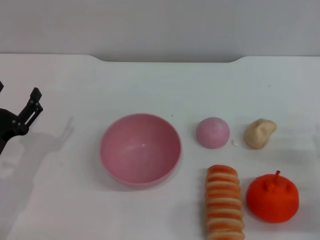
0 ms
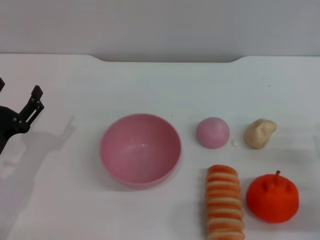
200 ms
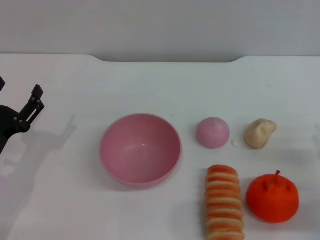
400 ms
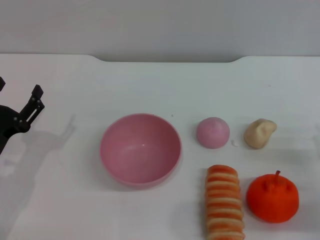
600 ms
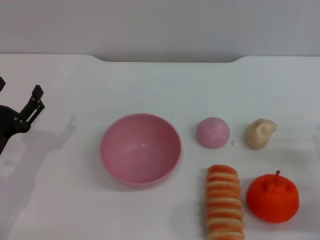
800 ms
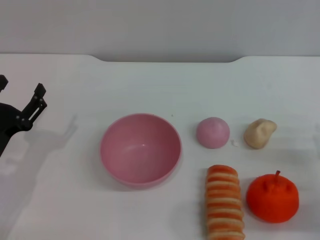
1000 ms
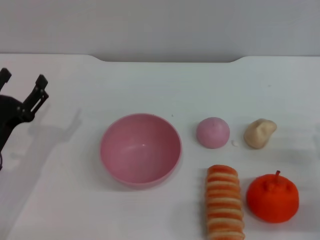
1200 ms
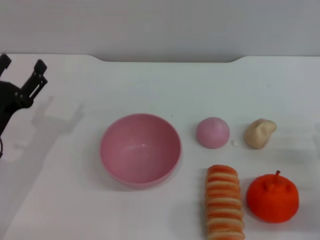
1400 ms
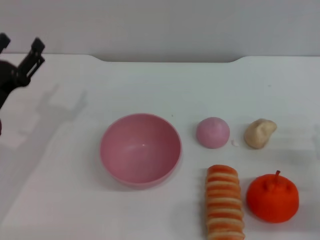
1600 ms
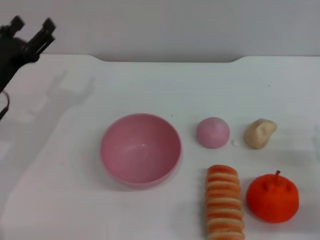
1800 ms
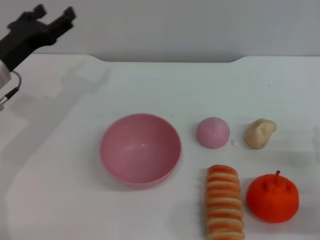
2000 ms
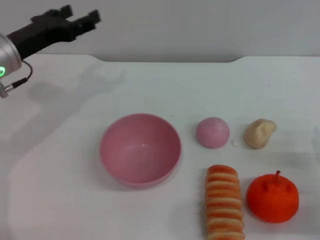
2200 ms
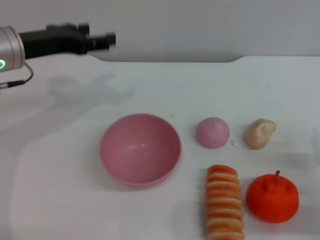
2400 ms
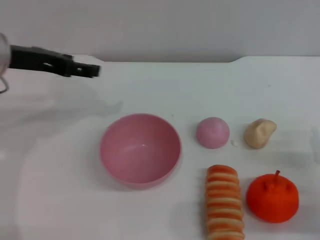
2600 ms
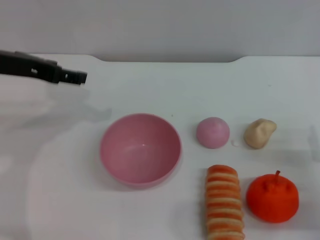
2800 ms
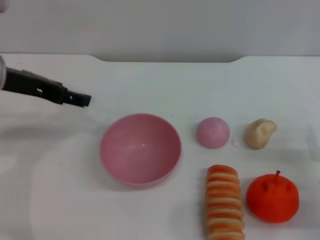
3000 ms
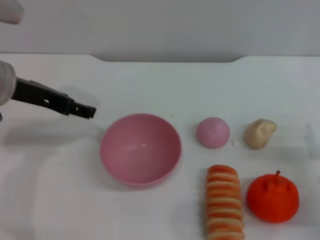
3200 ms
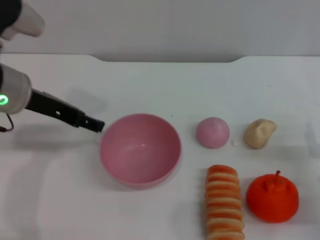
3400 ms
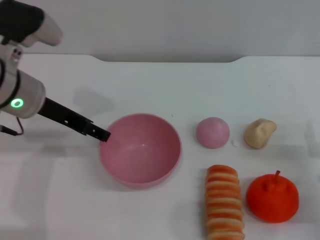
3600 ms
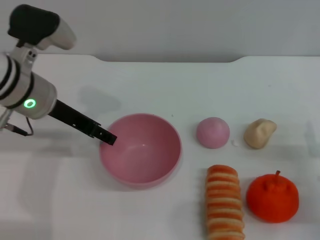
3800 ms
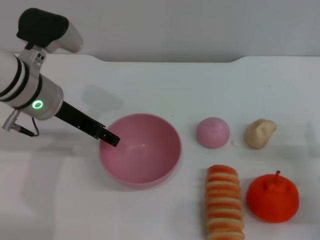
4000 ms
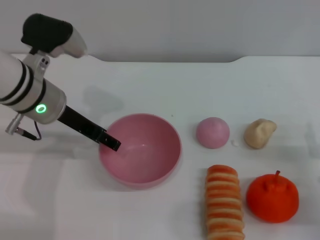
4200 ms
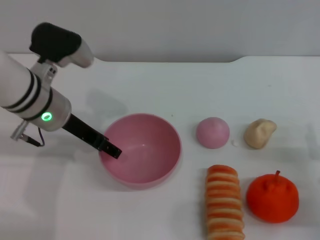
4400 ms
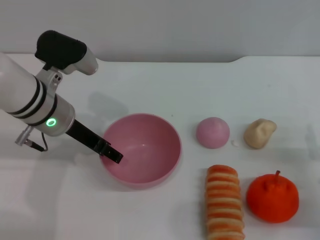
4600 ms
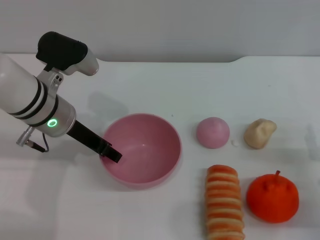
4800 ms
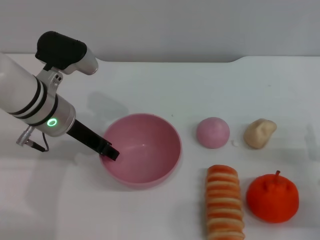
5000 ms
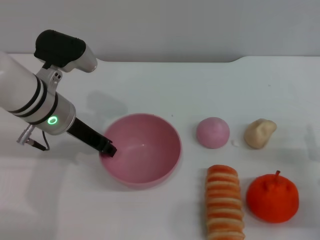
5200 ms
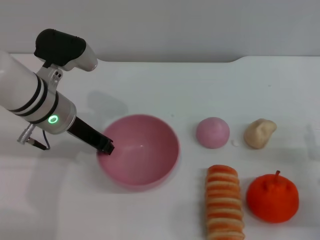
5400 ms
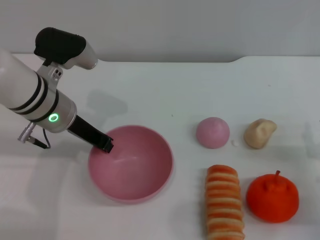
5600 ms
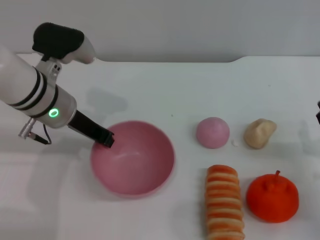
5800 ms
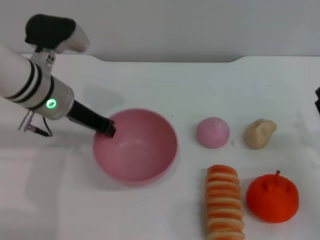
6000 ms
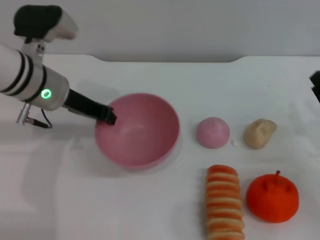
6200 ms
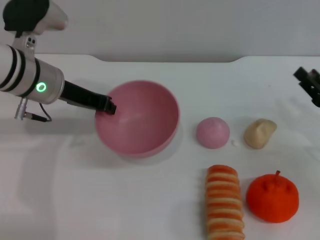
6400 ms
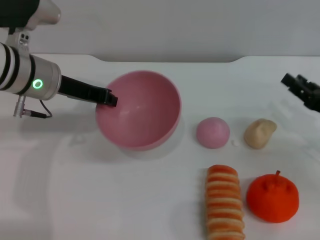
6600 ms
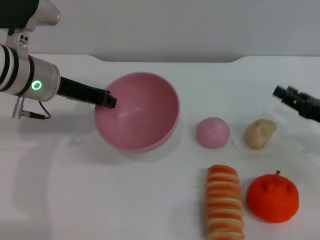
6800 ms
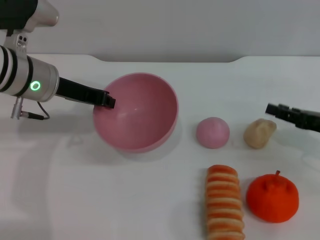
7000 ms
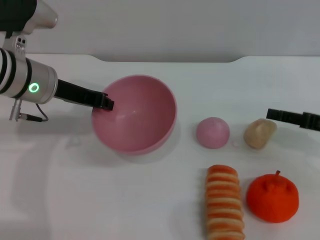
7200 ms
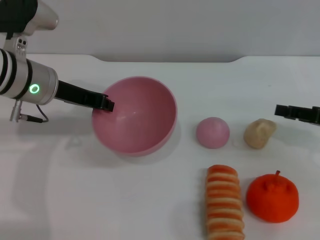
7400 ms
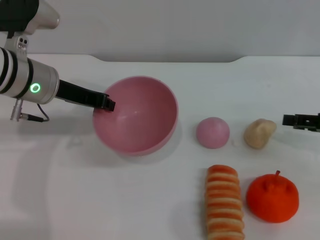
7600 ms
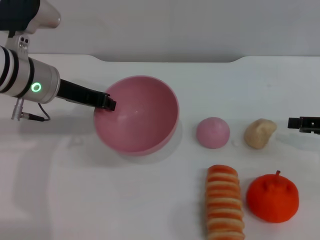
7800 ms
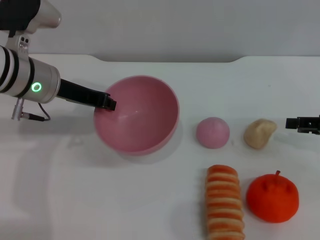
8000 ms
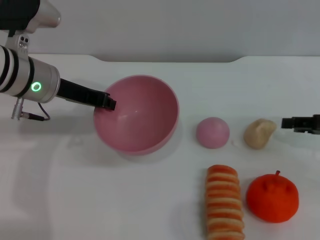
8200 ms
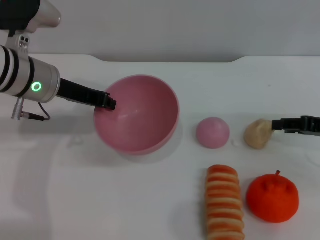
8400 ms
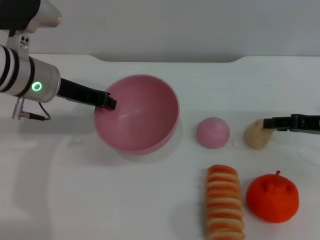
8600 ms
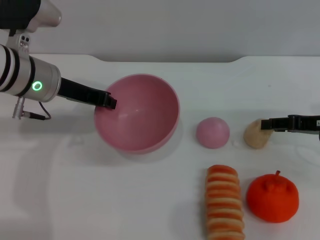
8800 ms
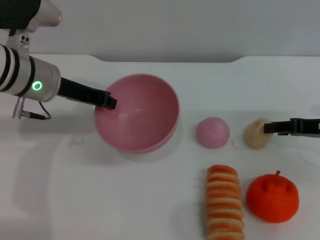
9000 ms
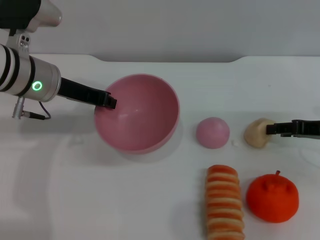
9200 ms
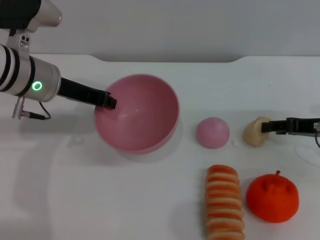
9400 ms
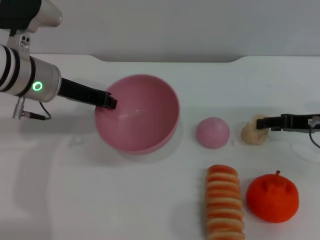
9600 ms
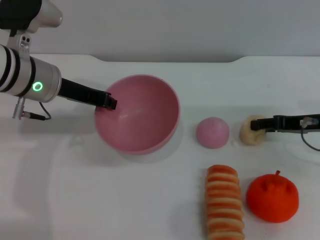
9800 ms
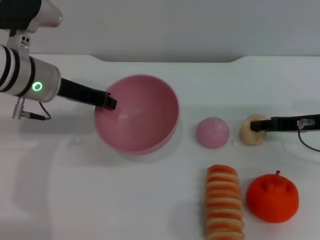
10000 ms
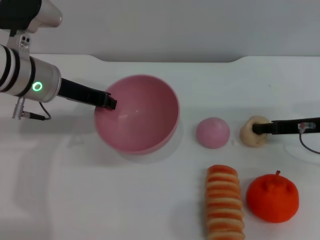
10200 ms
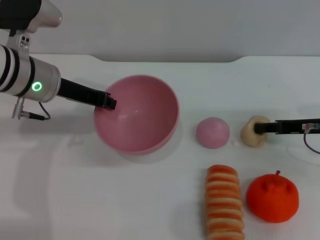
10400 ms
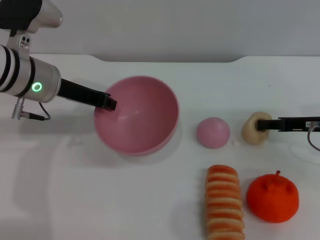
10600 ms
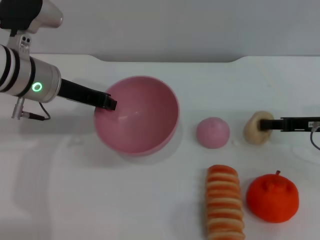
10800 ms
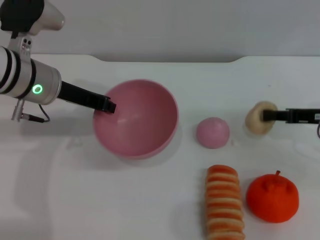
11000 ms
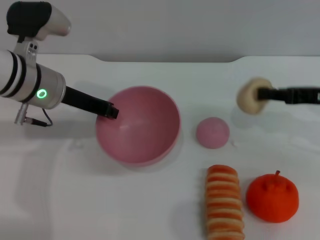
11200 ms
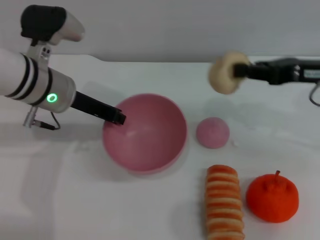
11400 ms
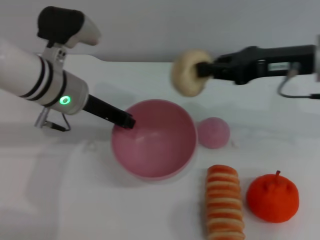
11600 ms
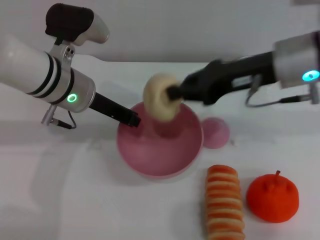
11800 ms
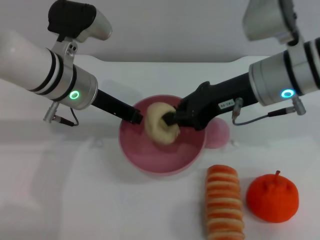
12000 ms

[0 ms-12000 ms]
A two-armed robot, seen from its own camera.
Task of the whole recording: put the egg yolk pastry into the pink bowl and pour it out repeatedly.
Step, 0 ms to 6800 ms: Pick up the bowl with the left gripper.
Step, 7000 ms to 11200 ms: Pick up the egg yolk pastry with the right gripper.
0 ms to 1600 ms: The left gripper travels forward by roughly 5 cm.
1600 ms to 3000 ms: The left gripper travels upward by roughly 15 cm.
3000 ms to 4400 ms: The left gripper heads downward and to the right, covering some 10 cm.
4400 ms to 6000 ms: The left gripper closes its fingers.
6000 ms to 7600 ms: The right gripper heads upward and forward, covering approximately 10 cm.
7600 ms to 9000 ms: The grippers move only a little.
9000 ms to 10400 ms: The grippers stay close to where they were, moving slightly.
10400 ms to 12000 ms: The right gripper moves to the left and upward, approximately 20 cm, and closes its fingers; the left gripper travels to the right by some 5 cm.

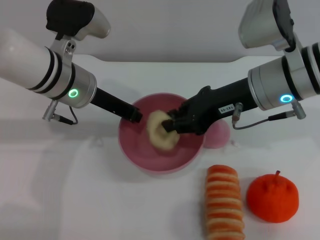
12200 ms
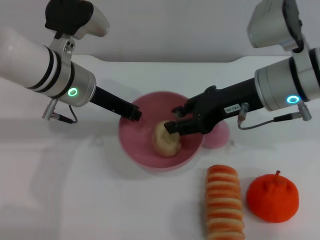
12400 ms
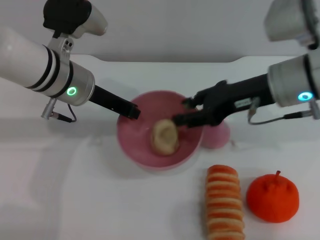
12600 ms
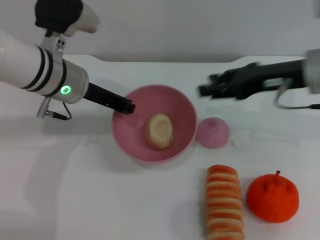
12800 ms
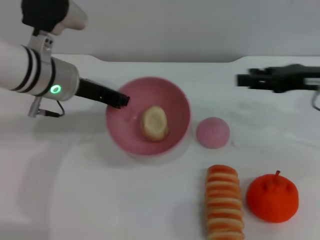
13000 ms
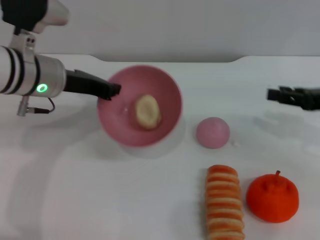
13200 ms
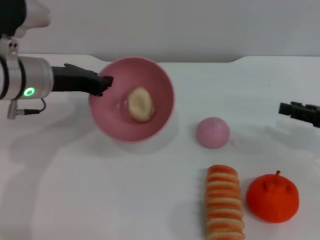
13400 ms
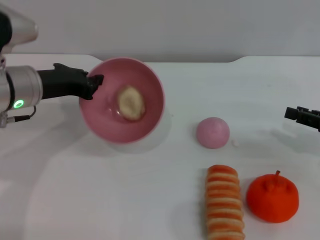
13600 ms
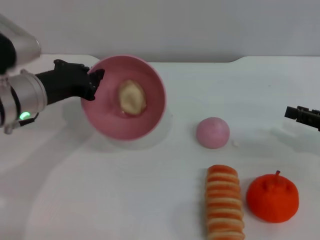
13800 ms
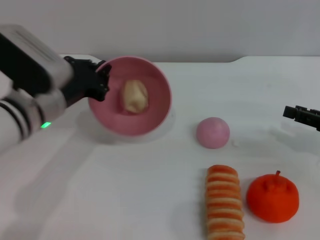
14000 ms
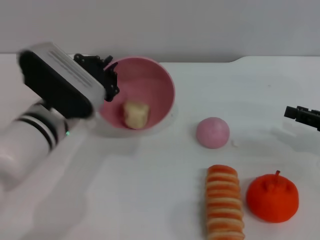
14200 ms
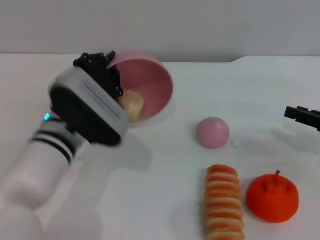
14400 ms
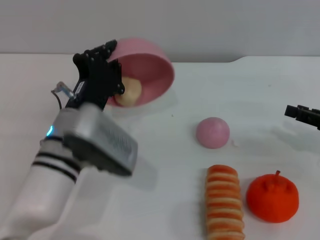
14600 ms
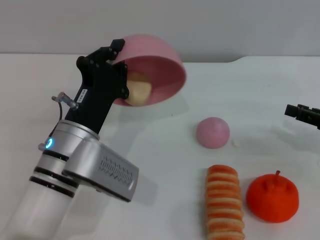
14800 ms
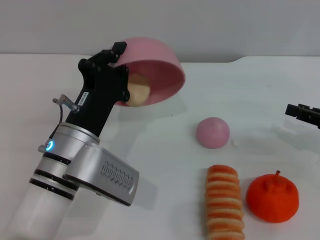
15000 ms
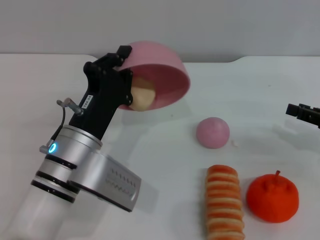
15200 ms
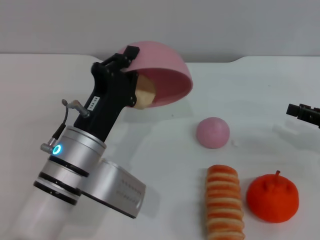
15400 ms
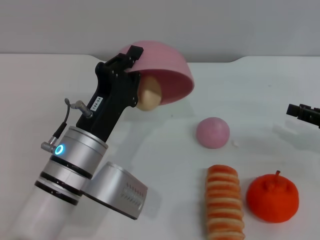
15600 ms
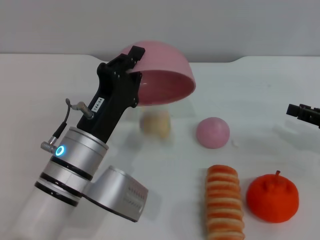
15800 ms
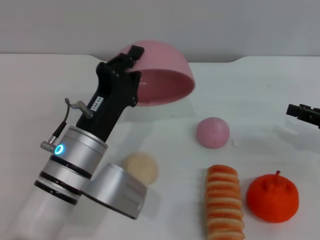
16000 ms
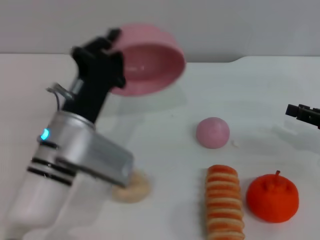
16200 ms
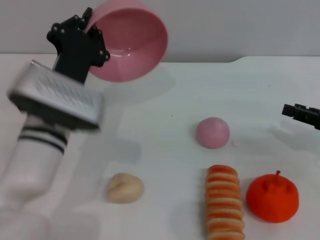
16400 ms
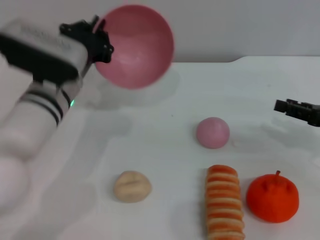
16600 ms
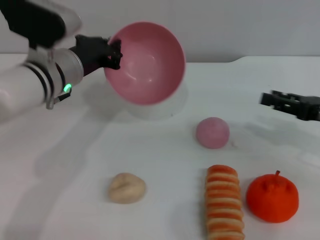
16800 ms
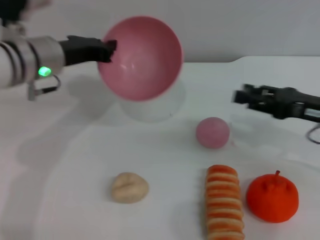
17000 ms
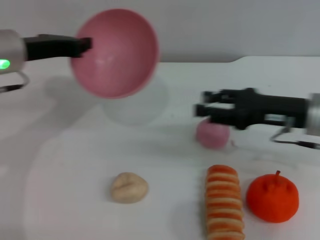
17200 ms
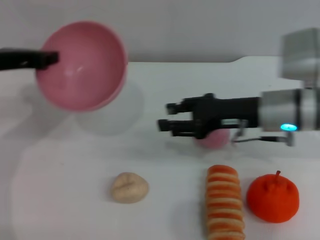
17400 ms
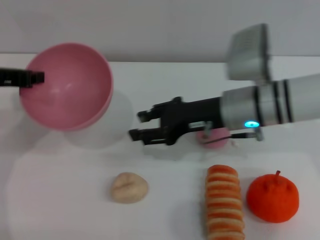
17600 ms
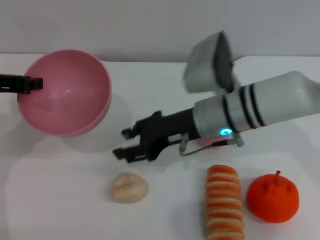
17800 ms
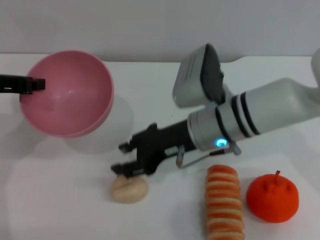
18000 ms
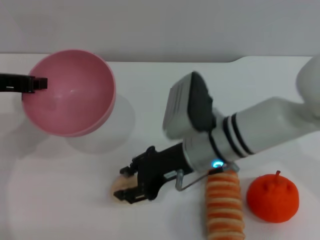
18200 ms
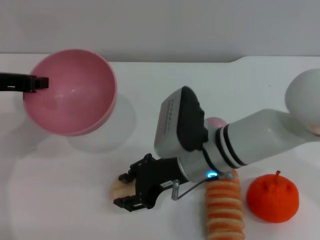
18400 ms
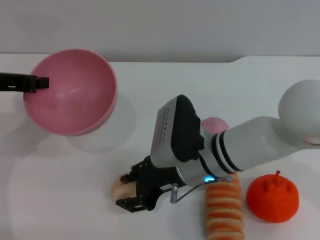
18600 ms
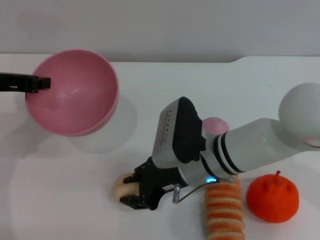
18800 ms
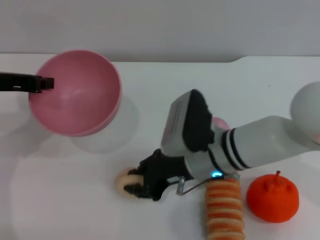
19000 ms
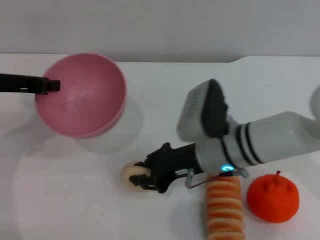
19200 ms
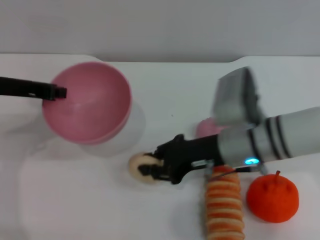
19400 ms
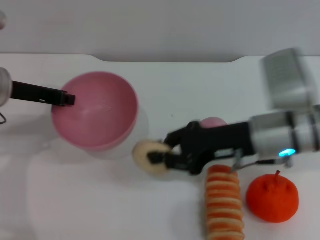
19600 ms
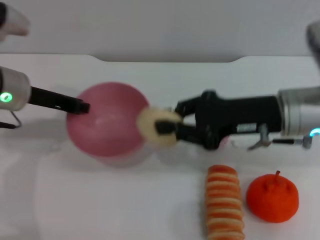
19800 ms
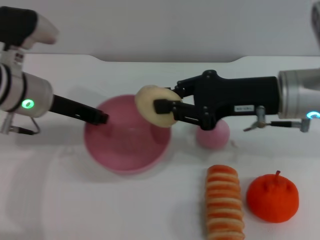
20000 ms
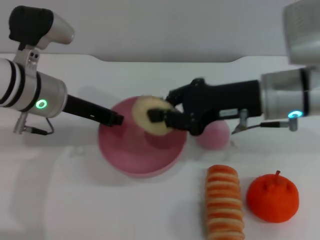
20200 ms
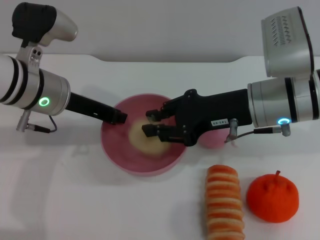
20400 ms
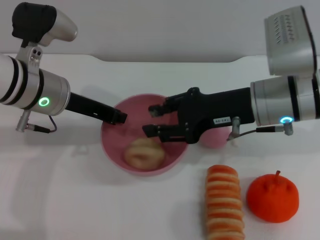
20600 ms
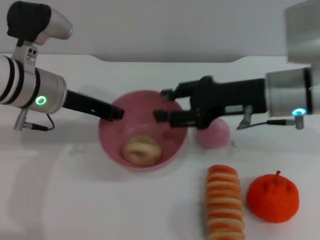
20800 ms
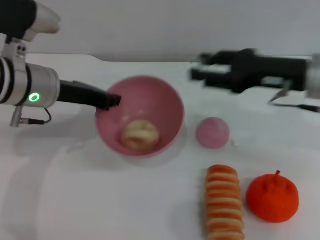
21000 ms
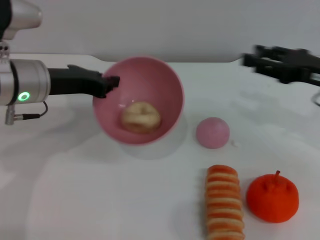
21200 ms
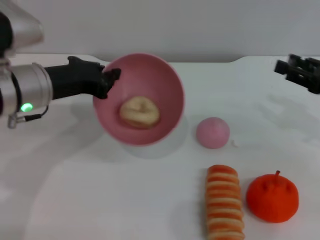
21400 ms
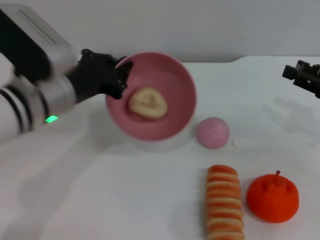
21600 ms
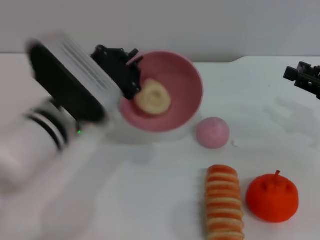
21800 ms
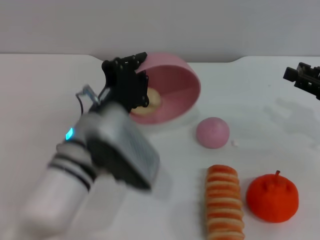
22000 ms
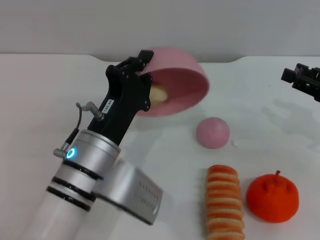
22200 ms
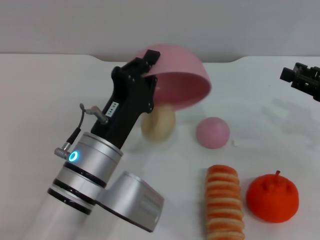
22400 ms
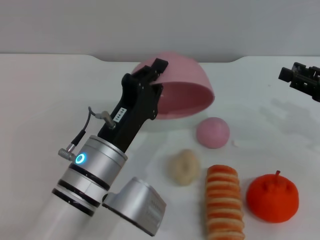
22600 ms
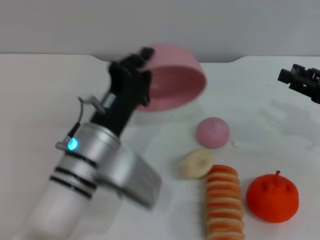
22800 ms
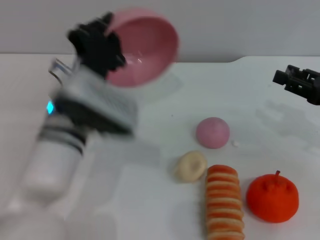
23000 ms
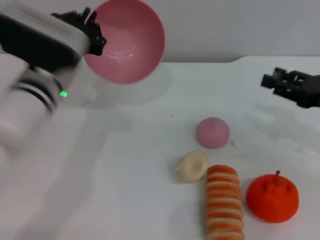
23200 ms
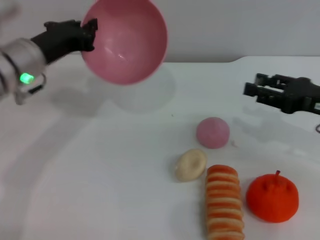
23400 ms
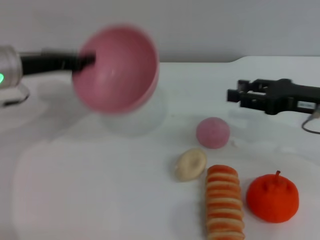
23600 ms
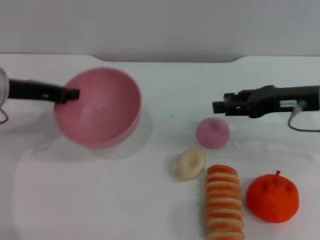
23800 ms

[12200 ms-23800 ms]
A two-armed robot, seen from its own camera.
Task of the whole recording: put the egg yolk pastry into the pink bowl and pour it out repeatedly.
Step, 12800 ms to 16000 ms: Pour the egg yolk pastry out of bowl.
Step, 16200 ms to 19600 ms: Pick up the egg yolk pastry with the right gripper.
Step, 19800 ms to 20800 ms: Place the egg yolk pastry into the bowl.
Step, 21000 ms to 22400 ms: Pour the egg yolk pastry out of bowl.
12200 ms to 13600 ms: The right gripper moves to the right and downward, approximately 20 cm, and opens its fingers. Meanwhile the left gripper heads to the left, covering approximately 5 cm.
13600 ms to 15000 ms: The left gripper heads to the right, backward and downward, covering roughly 15 cm.
15000 ms to 16600 ms: The left gripper moves forward, approximately 10 cm.
16600 ms to 18000 ms: The left gripper is displaced to the left and upward by roughly 15 cm. The right gripper shifts some 25 cm to the left.
18000 ms to 19400 ms: The right gripper changes place by about 5 cm, and closes.
19400 ms to 21000 ms: The right gripper travels to the right and upward by some 10 cm, and opens. Meanwhile the left gripper travels to the right by about 5 cm.
21000 ms to 22400 ms: The left gripper is displaced backward, to the right and downward by approximately 15 cm. The right gripper travels to the right by some 10 cm.
22400 ms to 23800 ms: The right gripper goes about 10 cm to the left. The left gripper heads to the left, forward and upward, covering some 20 cm.
